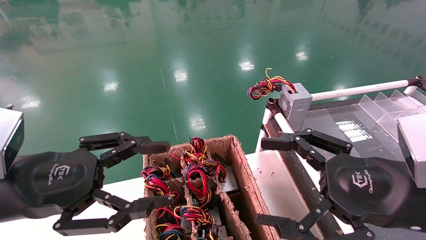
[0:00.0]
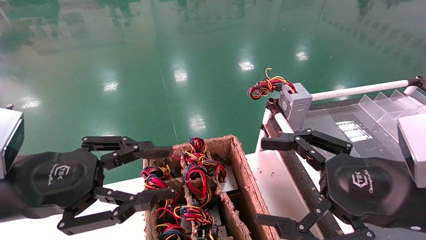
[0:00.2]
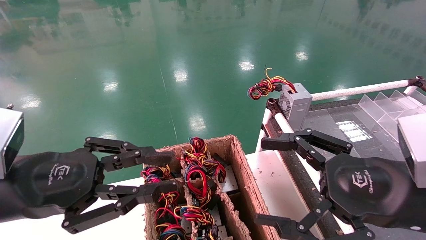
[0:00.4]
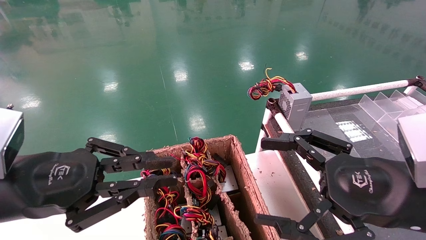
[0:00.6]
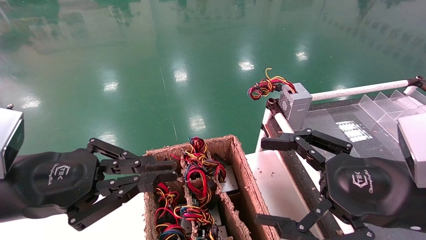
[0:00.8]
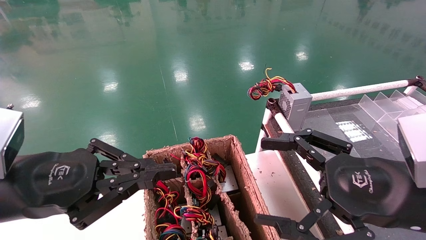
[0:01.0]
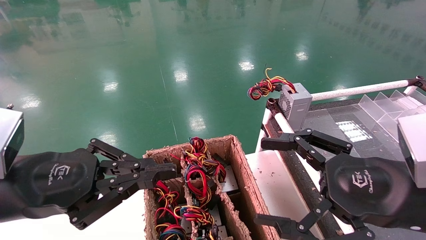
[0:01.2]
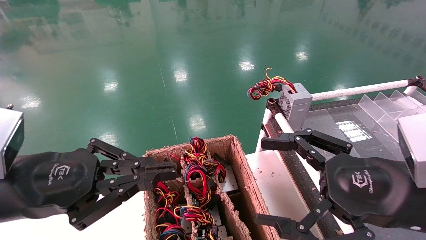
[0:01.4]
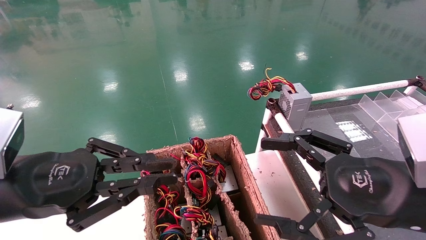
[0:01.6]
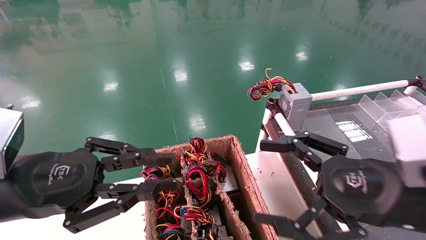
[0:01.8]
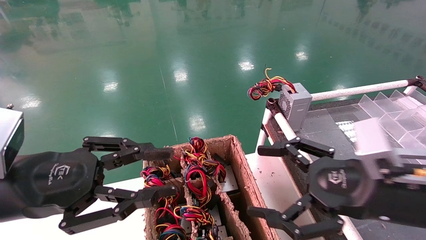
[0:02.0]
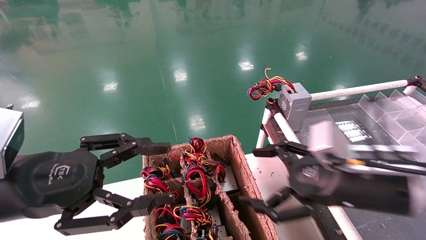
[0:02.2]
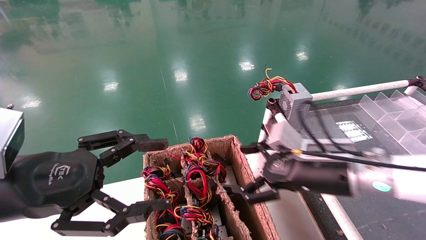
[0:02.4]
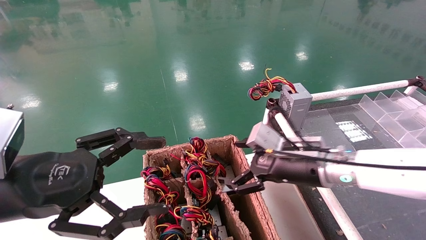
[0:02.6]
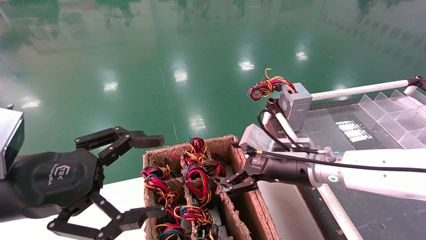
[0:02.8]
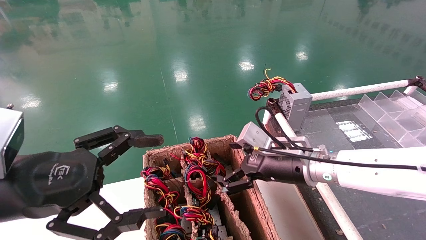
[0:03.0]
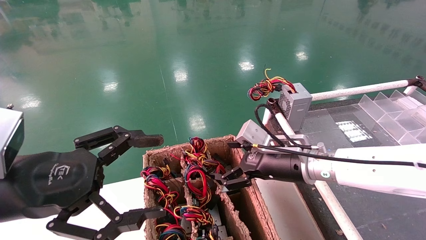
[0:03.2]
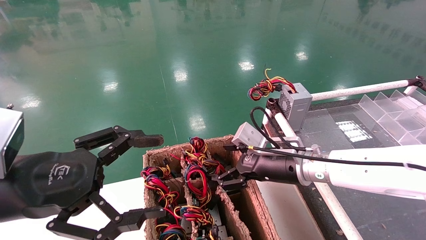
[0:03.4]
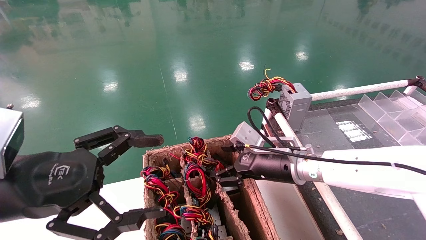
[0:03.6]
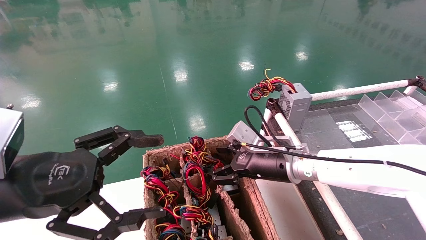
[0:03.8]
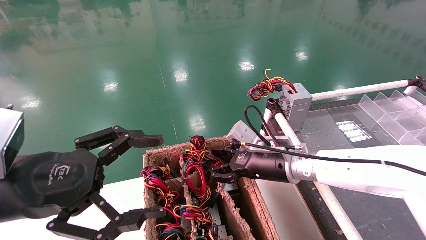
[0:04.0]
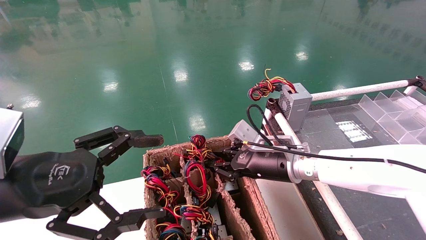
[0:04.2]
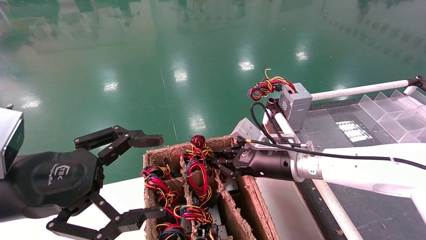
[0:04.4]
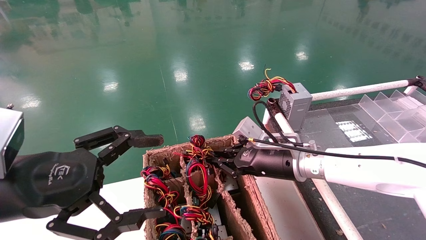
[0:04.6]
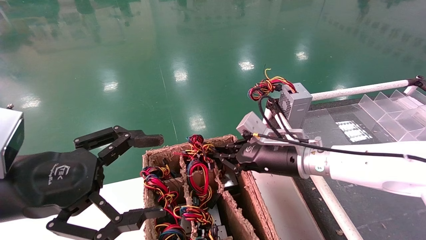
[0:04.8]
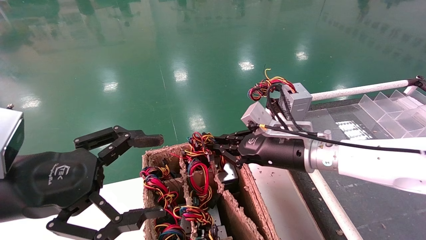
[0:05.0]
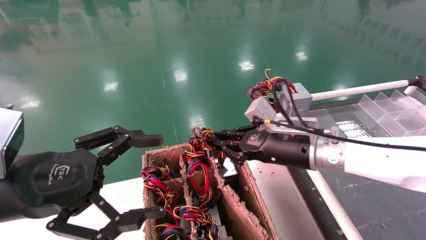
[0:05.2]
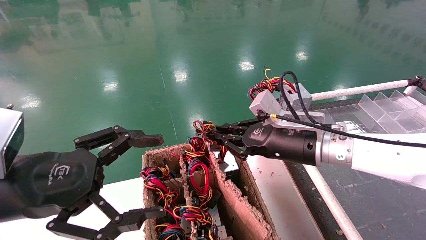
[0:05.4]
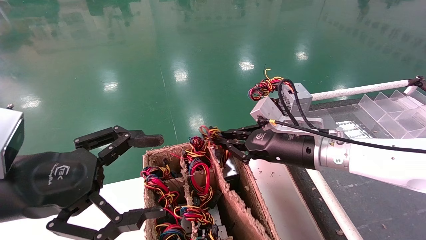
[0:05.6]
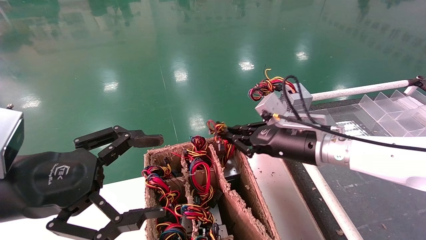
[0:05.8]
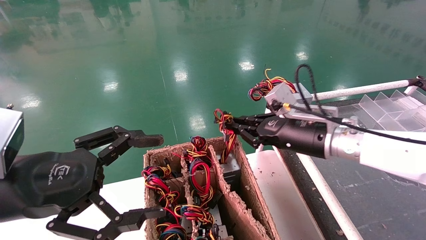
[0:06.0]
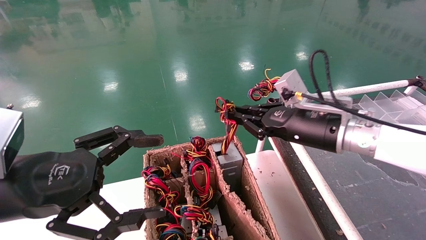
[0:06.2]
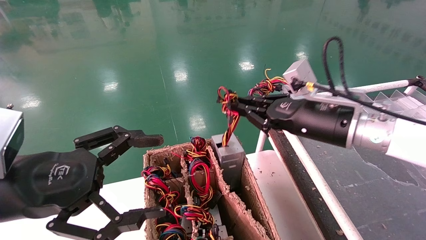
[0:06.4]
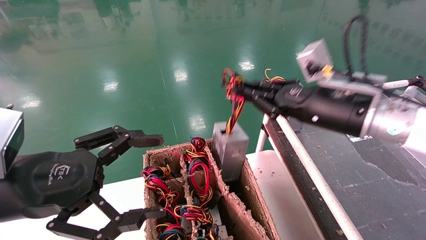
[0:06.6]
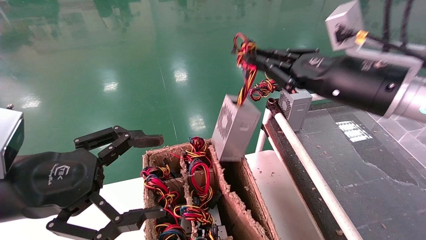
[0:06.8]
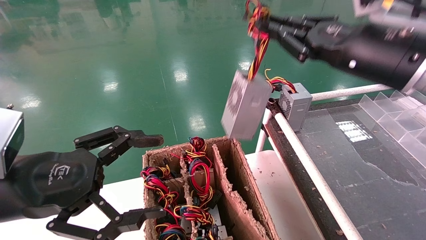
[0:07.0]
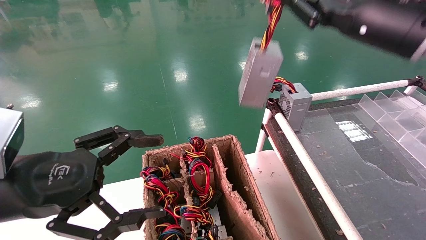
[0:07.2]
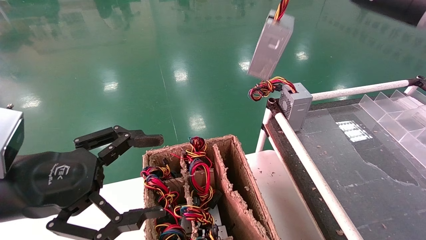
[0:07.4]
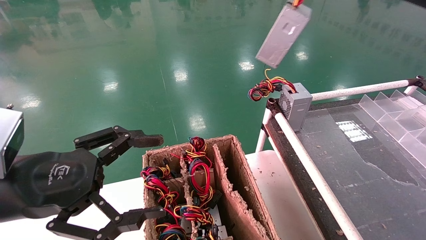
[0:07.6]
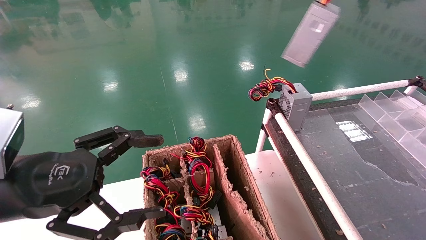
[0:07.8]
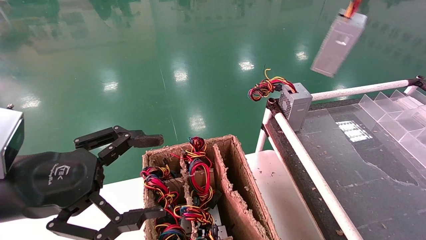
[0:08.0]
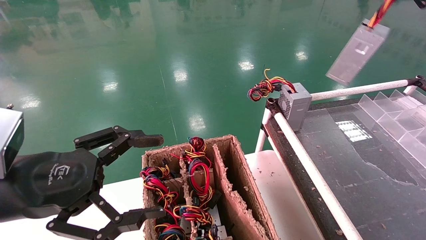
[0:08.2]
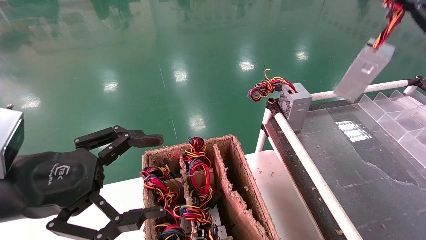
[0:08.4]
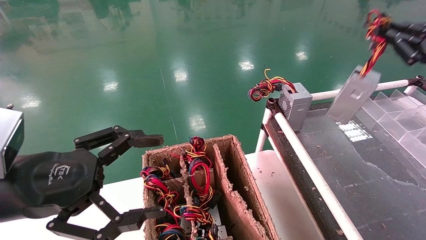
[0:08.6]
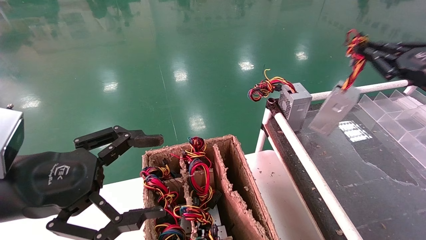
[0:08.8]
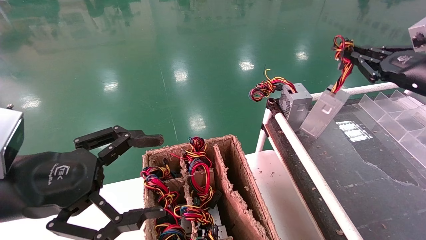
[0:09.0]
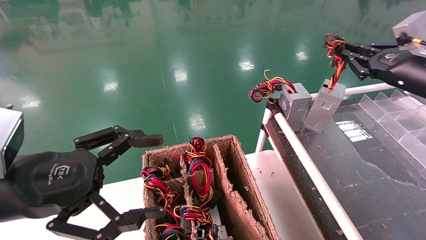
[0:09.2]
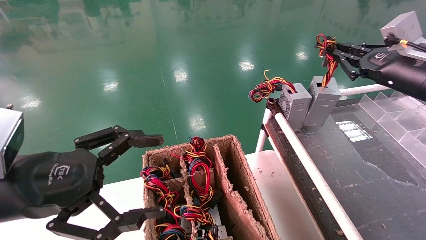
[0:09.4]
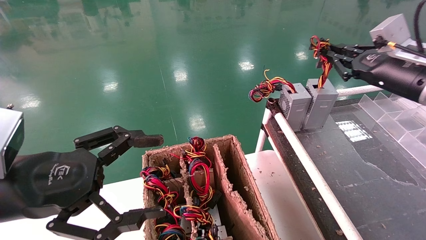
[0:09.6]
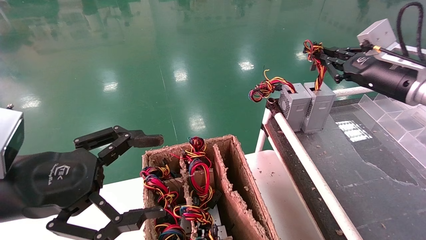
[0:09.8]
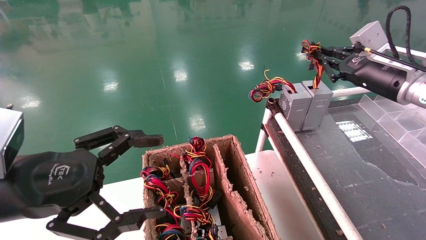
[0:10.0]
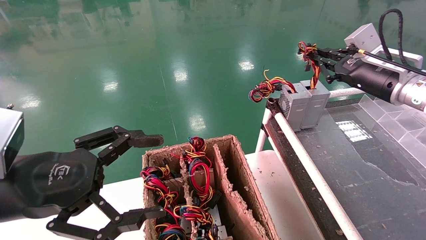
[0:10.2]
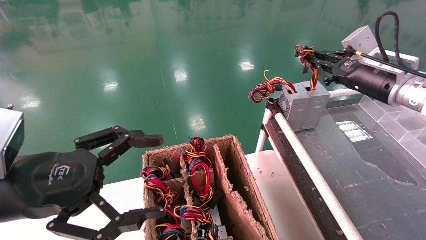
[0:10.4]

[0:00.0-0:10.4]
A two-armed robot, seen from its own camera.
Step, 0:01.0 to 0:04.4: Grab and lift the power supply from the large box.
0:00.0 to 0:01.4: The left gripper closes up.
0:01.4 to 0:03.0: The right gripper is displaced forward and to the left by about 20 cm; the left gripper opens.
0:03.0 to 0:04.4: The right gripper closes its fingers.
0:04.4 to 0:06.0: The right gripper moves upward and to the right, approximately 10 cm.
0:06.0 to 0:07.4: The right gripper goes about 25 cm upward and to the right.
0:07.4 to 0:09.0: The right gripper travels to the right and downward by some 15 cm.
0:09.0 to 0:10.4: The right gripper heads to the left and forward, covering roughly 10 cm.

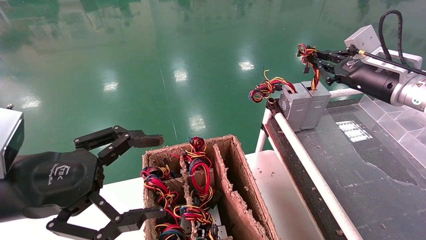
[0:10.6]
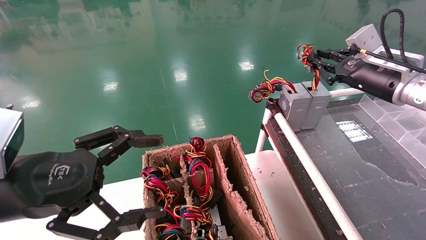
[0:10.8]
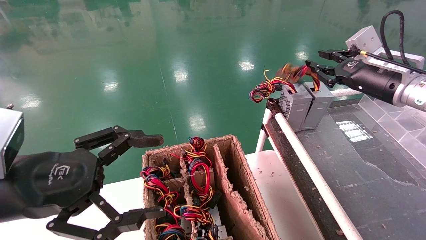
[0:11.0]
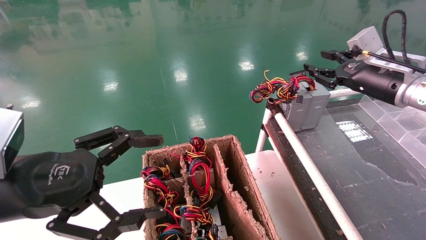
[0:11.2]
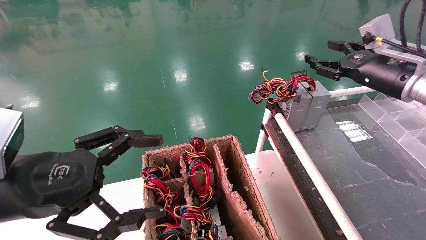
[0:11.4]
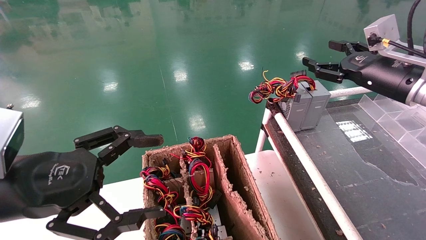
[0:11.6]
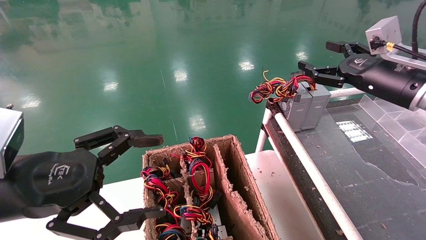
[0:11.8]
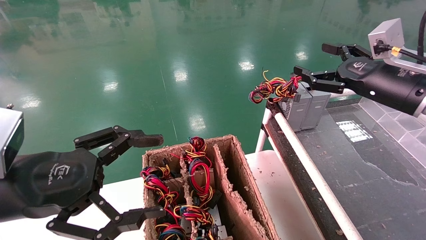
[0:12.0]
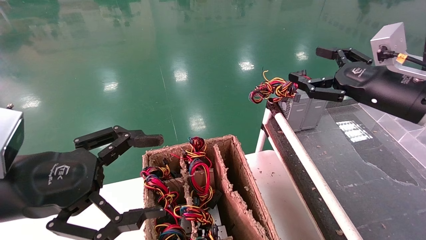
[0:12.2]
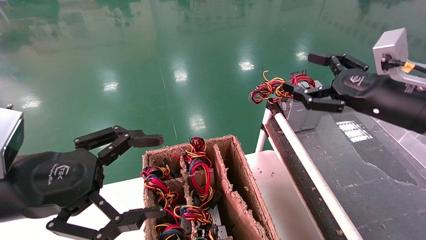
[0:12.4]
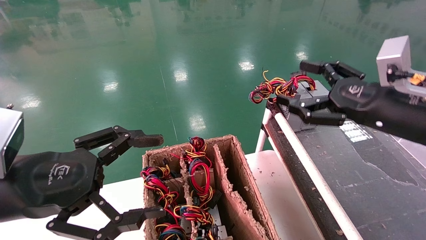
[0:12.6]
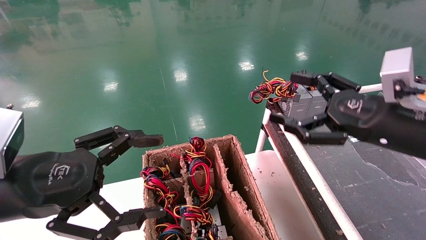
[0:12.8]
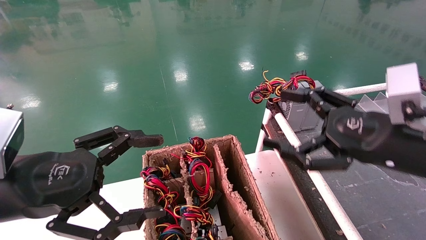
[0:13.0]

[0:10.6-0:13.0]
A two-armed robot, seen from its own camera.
0:10.6 to 0:11.8: The right gripper opens.
0:11.8 to 0:13.0: The right gripper goes about 15 cm backward and to the left.
